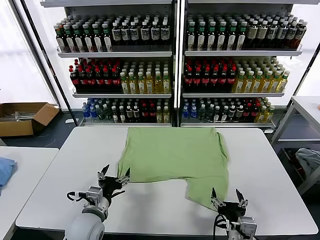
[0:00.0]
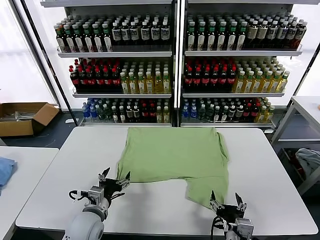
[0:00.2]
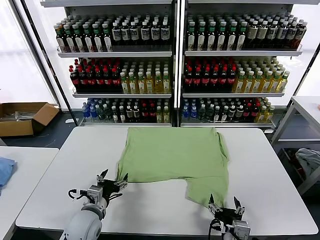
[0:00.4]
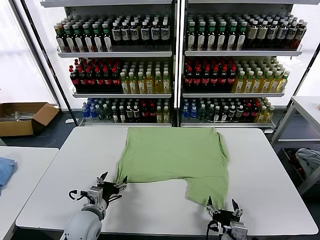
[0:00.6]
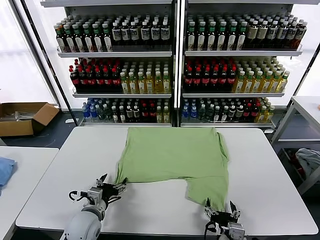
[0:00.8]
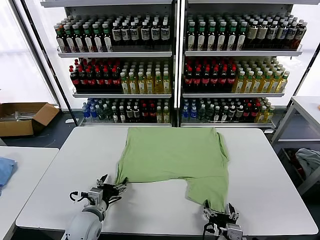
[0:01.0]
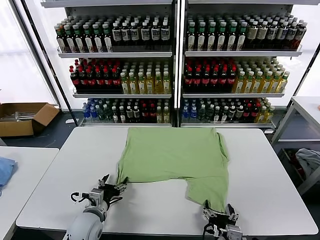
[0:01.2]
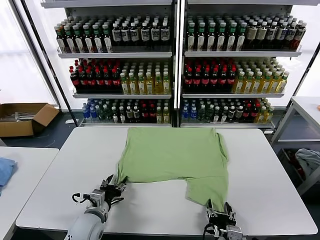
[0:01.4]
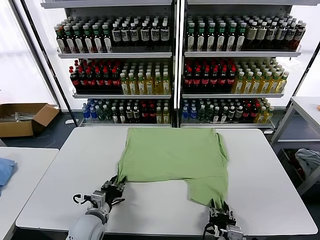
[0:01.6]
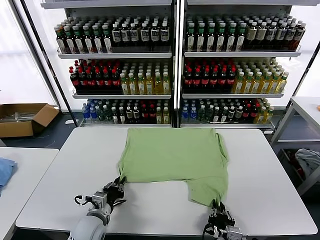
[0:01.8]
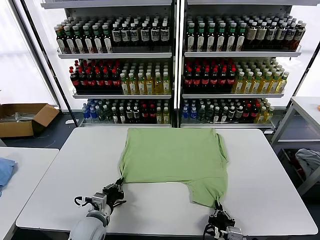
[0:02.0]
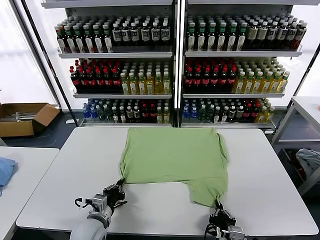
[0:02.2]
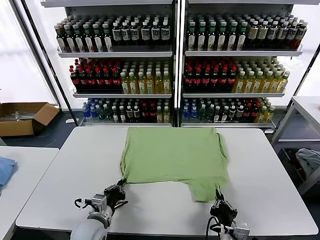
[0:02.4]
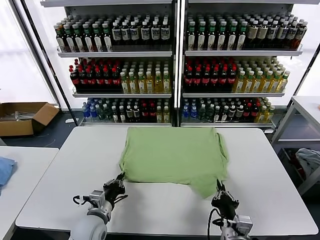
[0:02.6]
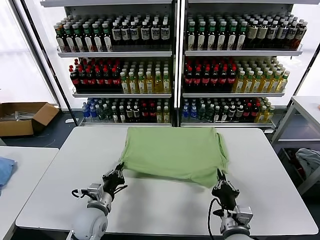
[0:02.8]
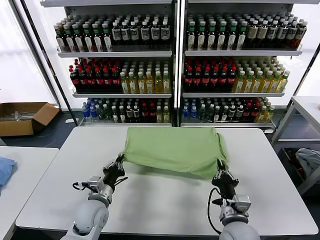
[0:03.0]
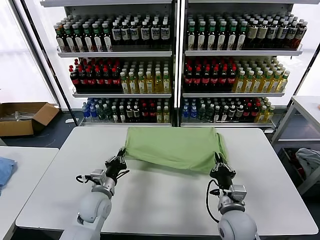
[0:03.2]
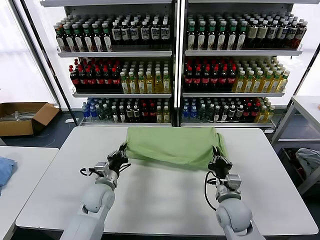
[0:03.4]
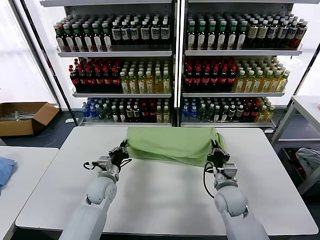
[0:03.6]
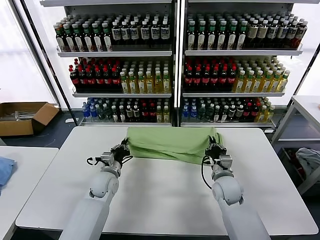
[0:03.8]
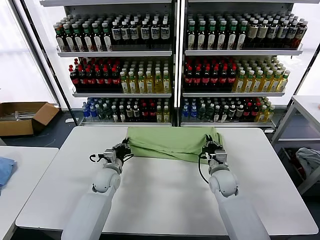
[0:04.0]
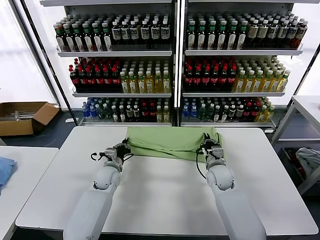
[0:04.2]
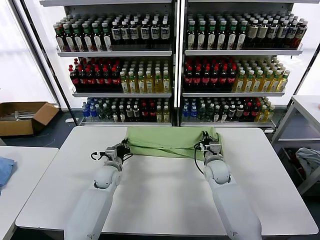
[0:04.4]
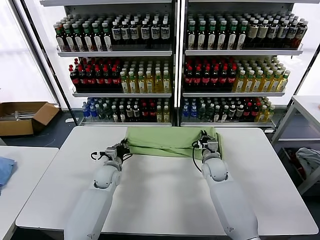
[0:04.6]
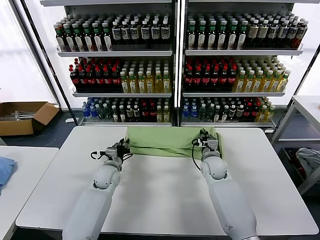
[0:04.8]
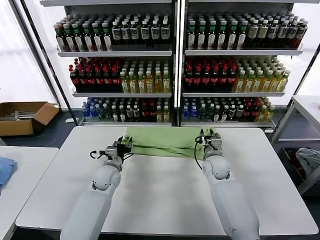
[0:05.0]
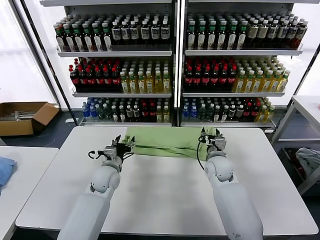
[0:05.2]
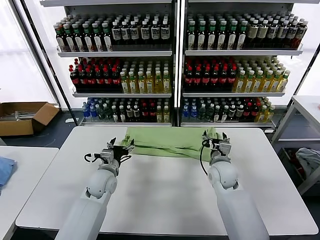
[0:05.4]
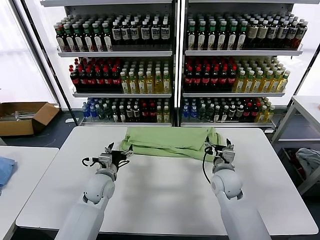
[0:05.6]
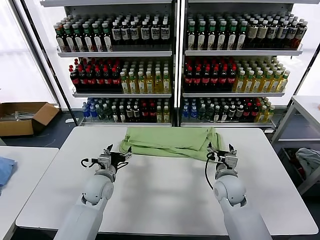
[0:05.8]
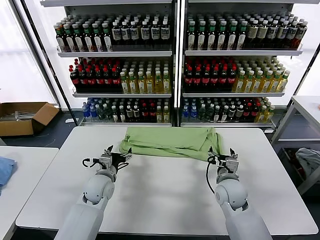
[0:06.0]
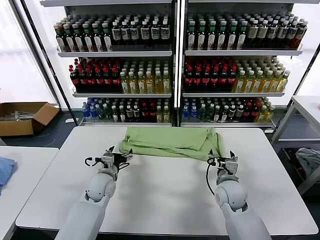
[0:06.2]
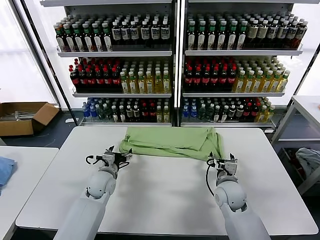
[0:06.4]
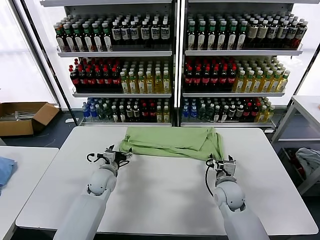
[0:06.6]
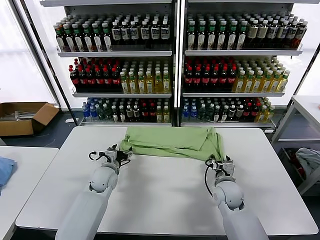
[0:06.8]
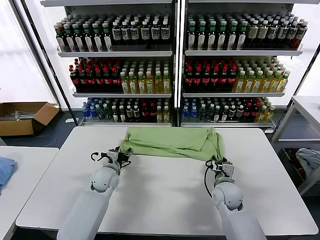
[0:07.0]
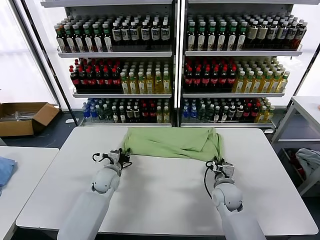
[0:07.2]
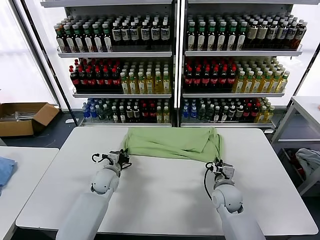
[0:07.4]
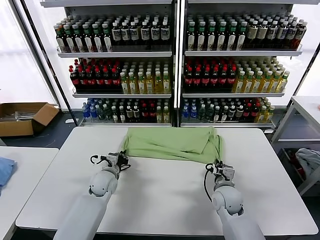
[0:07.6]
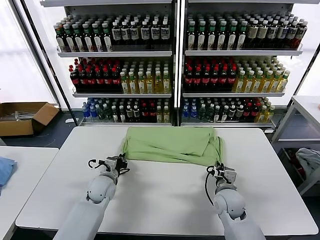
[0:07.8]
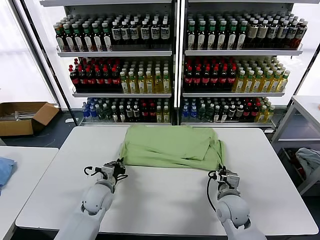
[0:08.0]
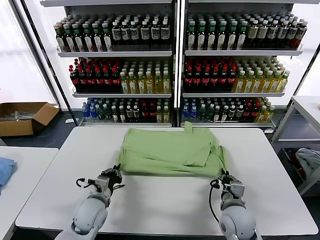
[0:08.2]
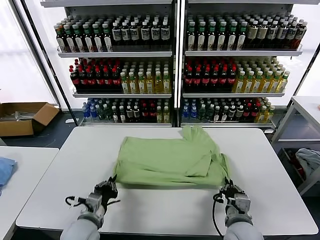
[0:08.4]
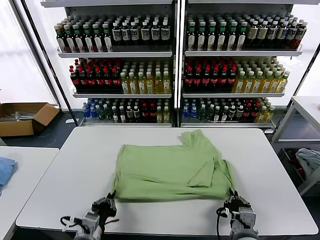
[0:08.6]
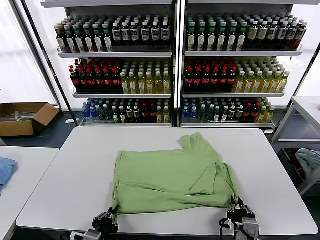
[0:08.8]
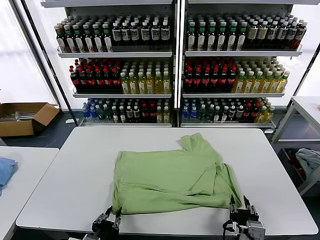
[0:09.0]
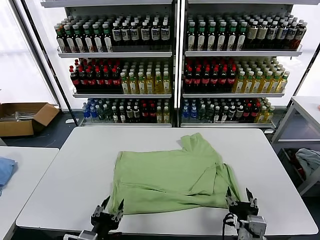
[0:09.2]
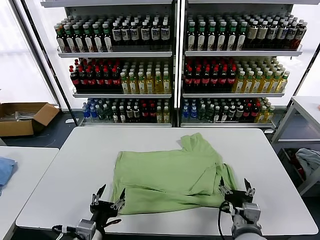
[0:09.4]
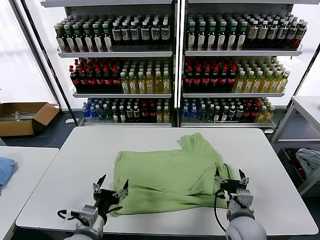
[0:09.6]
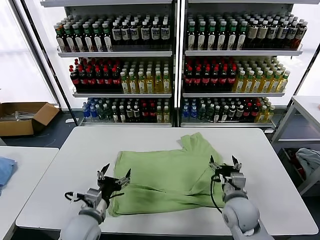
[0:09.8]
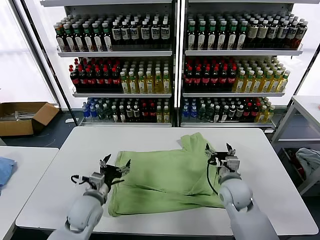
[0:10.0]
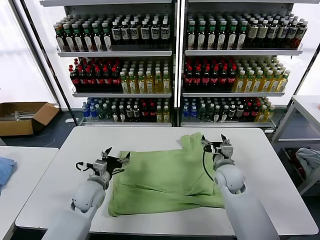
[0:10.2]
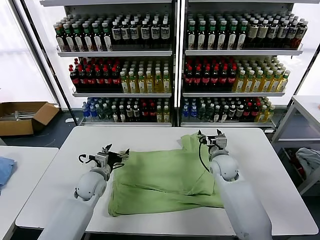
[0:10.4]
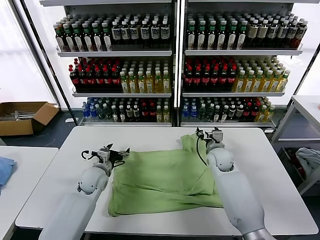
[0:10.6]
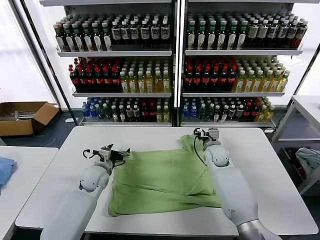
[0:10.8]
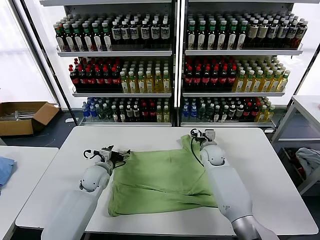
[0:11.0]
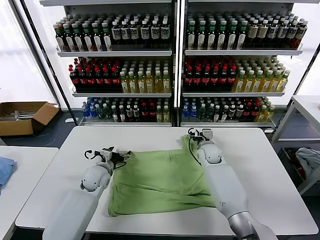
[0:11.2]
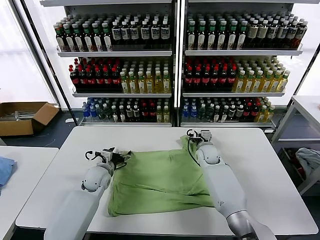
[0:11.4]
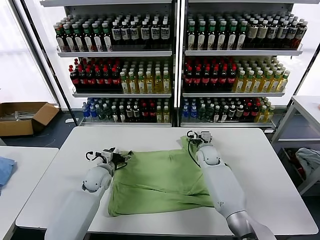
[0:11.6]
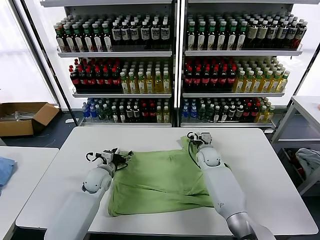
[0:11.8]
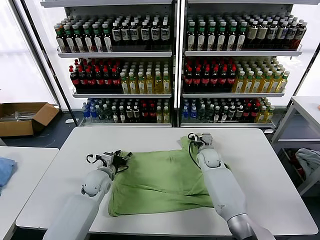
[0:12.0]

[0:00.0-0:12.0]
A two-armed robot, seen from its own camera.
Task of the whole recording: fold and organize the clothes.
Step, 0:00.0 to 0:02.0: use both grippers simultaneously to clamp the lower edge of the clothing fabric.
Step, 0:02.2 to 0:05.0: use both grippers to drag the lower edge of the fabric forward and fold it over the upper edge.
Step, 0:05.2 to 0:08.8: Drag the clothes downward with both gripper.
0:01.6 to 0:03.0: The right gripper moves forward, roughly 10 cm; the left gripper moves forward, some 5 cm, and closes.
0:03.0 to 0:04.4: The left gripper moves forward, approximately 15 cm. Meanwhile the right gripper shifts roughly 20 cm forward.
0:04.4 to 0:06.0: The left gripper travels backward by some 5 cm, and opens. The right gripper is displaced backward by roughly 10 cm, and opens its fingers.
0:06.0 to 0:07.6: The right gripper closes up. The left gripper closes its fingers.
0:07.6 to 0:09.0: The right gripper goes some 20 cm backward, and opens. The left gripper shifts about 30 cm backward, and opens up.
0:09.0 to 0:10.4: The grippers both shift forward by some 30 cm. The left gripper opens.
0:10.4 to 0:12.0: The right gripper moves downward and forward, about 10 cm, while the left gripper closes its fingers.

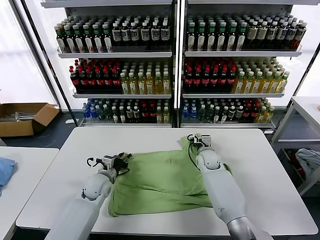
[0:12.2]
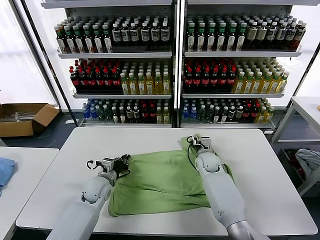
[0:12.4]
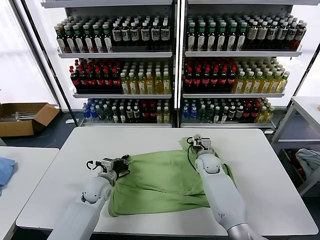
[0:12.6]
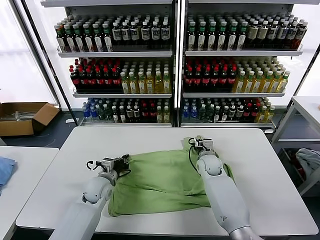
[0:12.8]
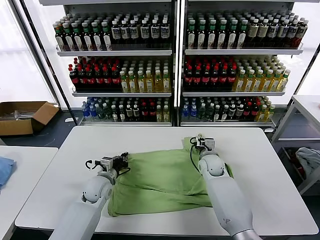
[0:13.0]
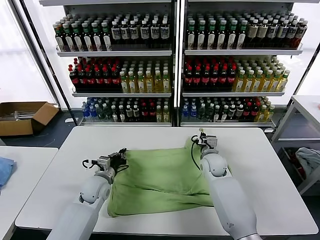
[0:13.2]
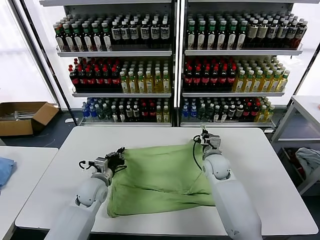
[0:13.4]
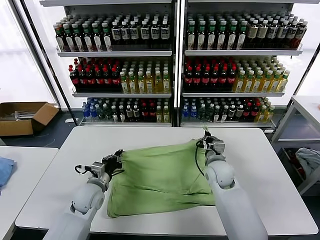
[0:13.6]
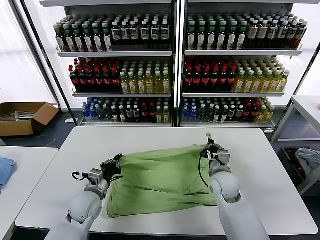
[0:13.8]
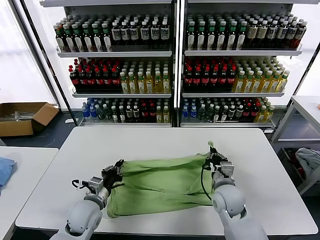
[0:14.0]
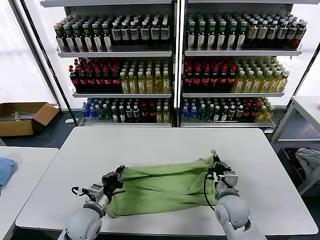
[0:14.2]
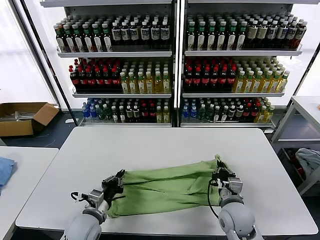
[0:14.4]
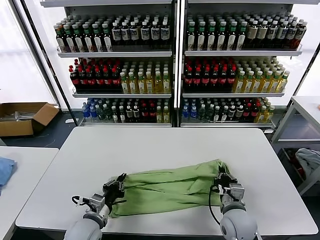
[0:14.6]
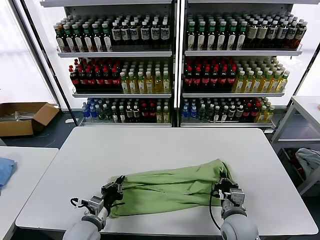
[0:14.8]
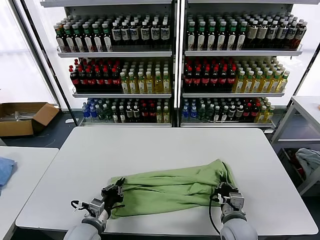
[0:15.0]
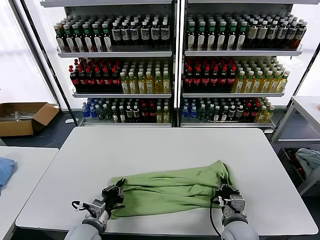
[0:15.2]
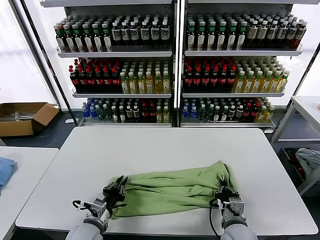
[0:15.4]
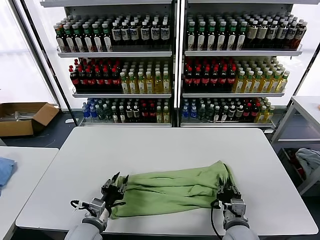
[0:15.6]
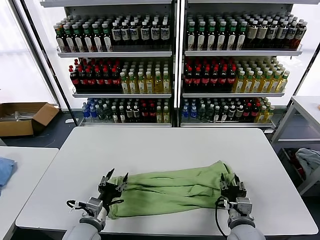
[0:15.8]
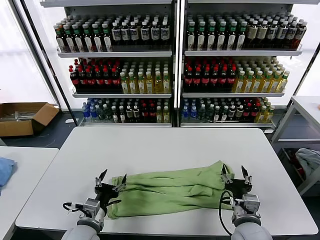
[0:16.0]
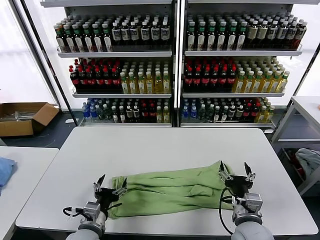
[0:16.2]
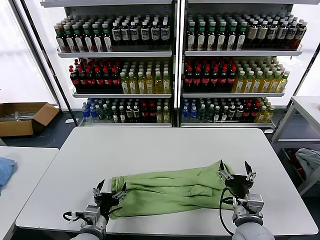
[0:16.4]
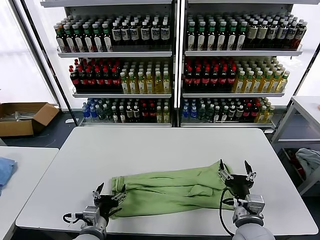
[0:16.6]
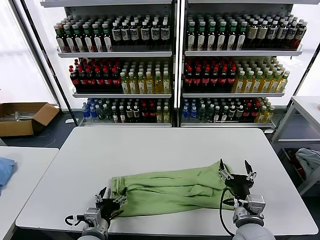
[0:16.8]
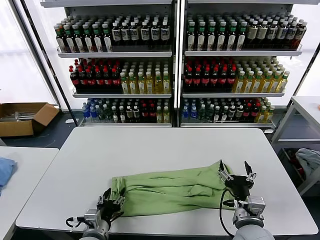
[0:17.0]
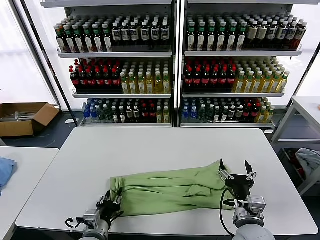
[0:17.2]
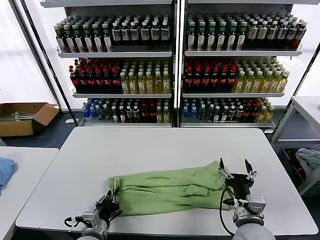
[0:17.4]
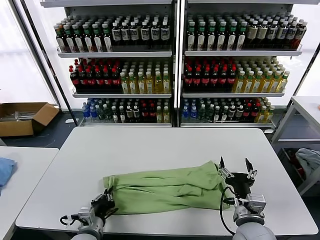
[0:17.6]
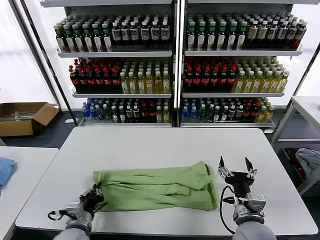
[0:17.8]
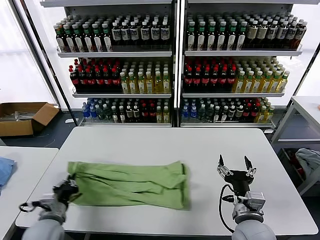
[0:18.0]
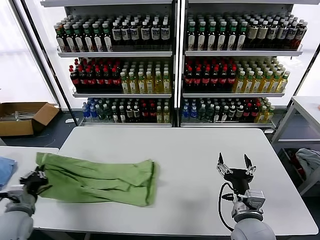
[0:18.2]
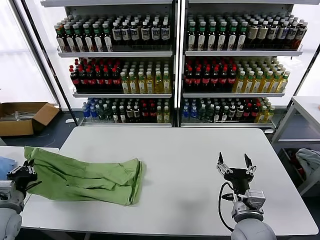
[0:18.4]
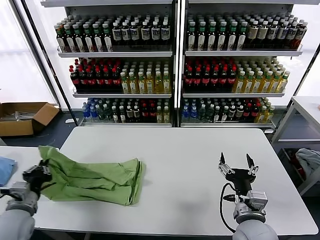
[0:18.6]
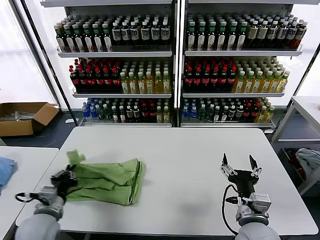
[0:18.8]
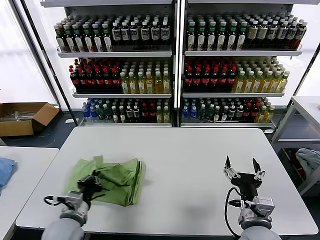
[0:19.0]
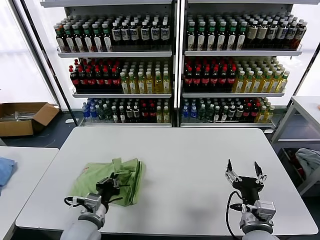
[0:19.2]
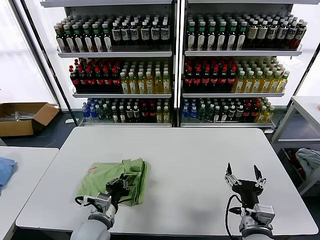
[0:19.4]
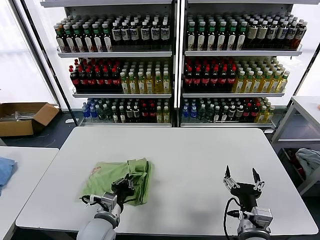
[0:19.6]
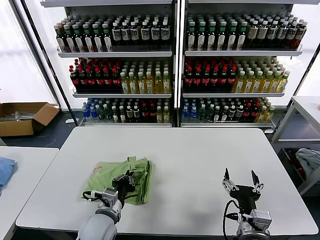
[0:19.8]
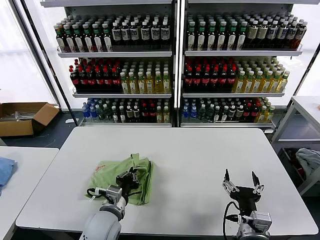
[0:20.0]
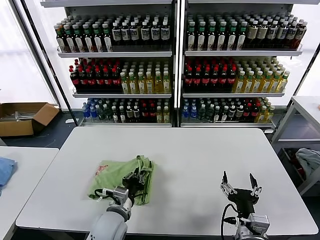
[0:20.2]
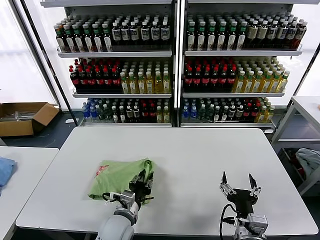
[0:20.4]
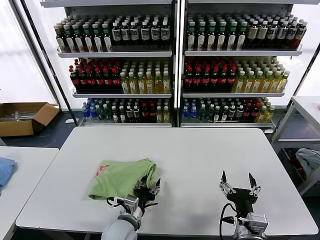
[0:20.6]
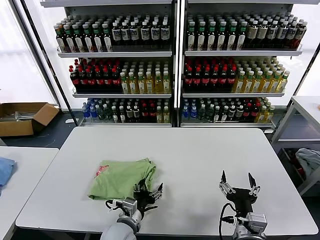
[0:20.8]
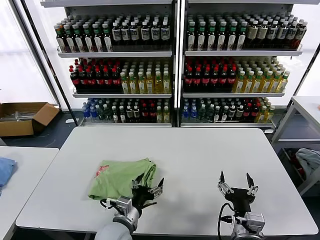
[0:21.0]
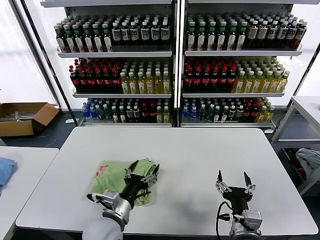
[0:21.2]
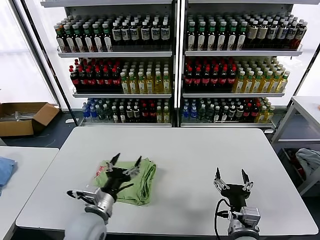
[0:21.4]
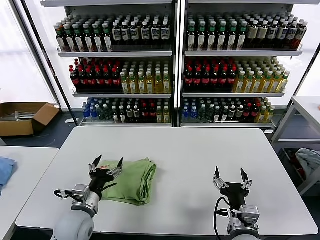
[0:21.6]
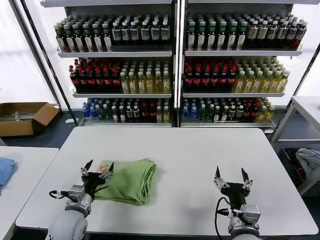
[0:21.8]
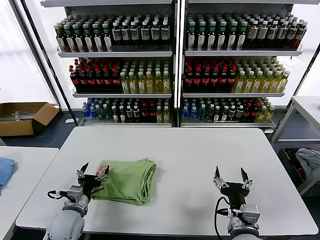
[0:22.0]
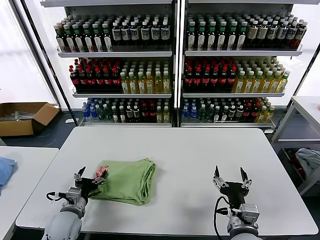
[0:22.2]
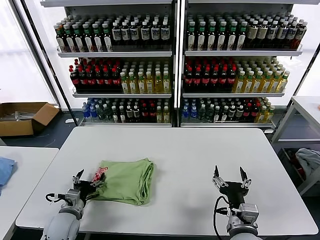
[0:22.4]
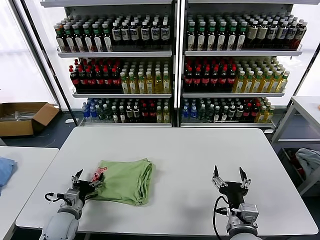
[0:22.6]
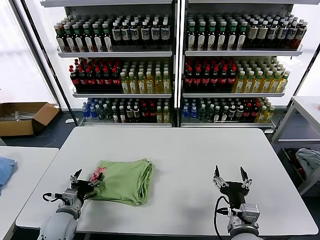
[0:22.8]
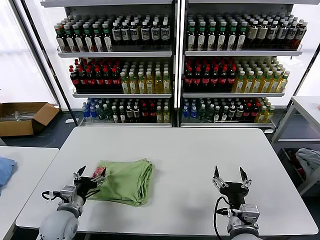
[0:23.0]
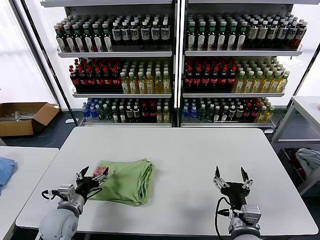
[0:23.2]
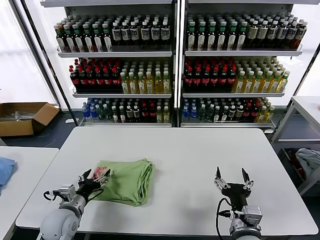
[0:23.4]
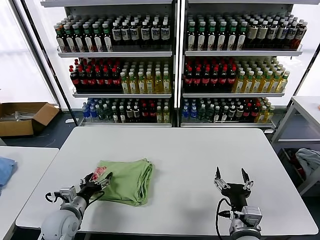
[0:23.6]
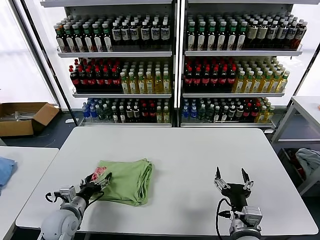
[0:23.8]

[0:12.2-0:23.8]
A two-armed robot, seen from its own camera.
Task of the whole recording: fold and organize the clothes.
Step, 0:12.8 to 0:15.8: use both grippers to drag the upper edge of the fabric backward and fold it over the lower edge.
Step, 0:16.0 to 0:17.4: use the left gripper to clamp the left edge of the fabric.
Step, 0:17.6 to 0:20.8: use the left gripper to drag the left edge of the fabric to the left and folds it over the right edge.
0:12.2 to 0:13.6: The right gripper travels backward and upward by roughly 15 cm, and closes; the left gripper moves backward, some 5 cm, and closes.
0:13.6 to 0:15.0: Both grippers travel together backward, approximately 15 cm.
0:15.0 to 0:16.6: The left gripper opens its fingers; the right gripper moves upward, roughly 5 cm, and opens its fingers.
0:16.6 to 0:18.0: The left gripper heads to the left, covering some 15 cm, and closes its fingers.
0:18.0 to 0:19.4: The left gripper is displaced to the right by about 15 cm.
0:19.4 to 0:21.0: The left gripper moves to the right, approximately 5 cm, and opens its fingers.
0:21.0 to 0:22.4: The left gripper heads to the left, covering approximately 20 cm.
